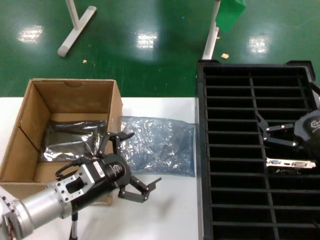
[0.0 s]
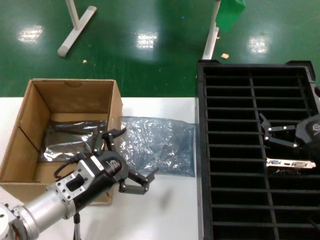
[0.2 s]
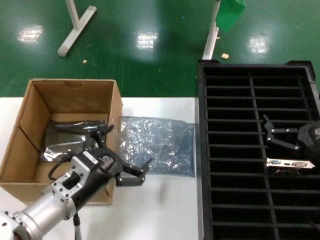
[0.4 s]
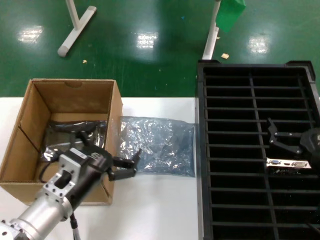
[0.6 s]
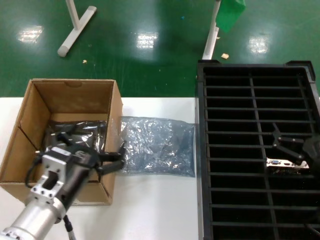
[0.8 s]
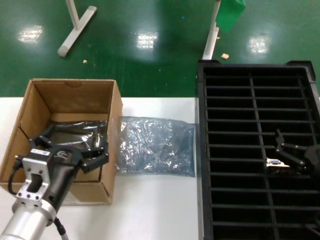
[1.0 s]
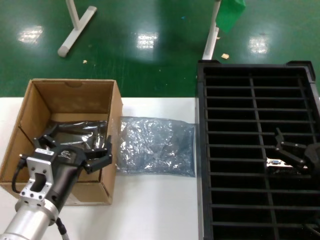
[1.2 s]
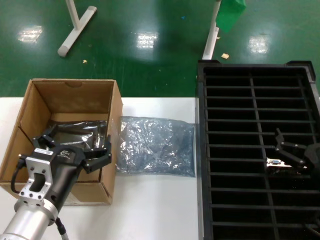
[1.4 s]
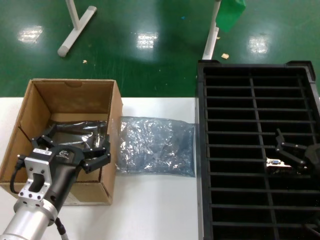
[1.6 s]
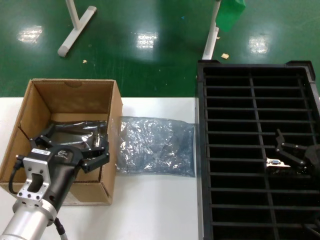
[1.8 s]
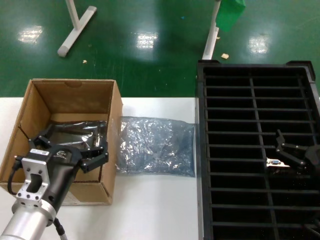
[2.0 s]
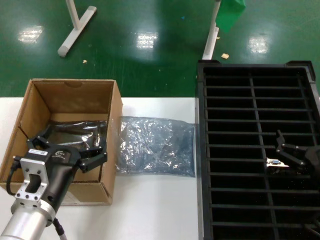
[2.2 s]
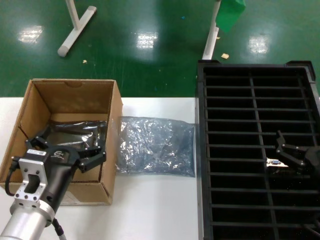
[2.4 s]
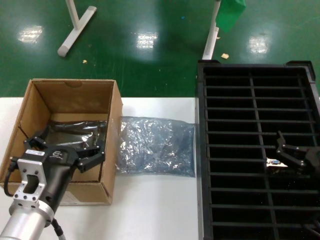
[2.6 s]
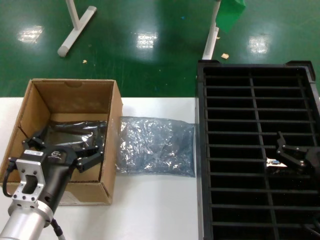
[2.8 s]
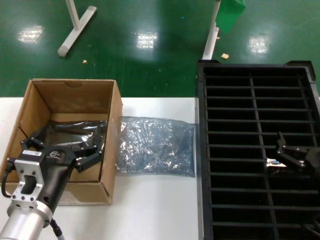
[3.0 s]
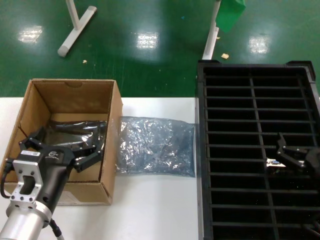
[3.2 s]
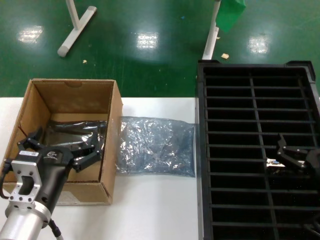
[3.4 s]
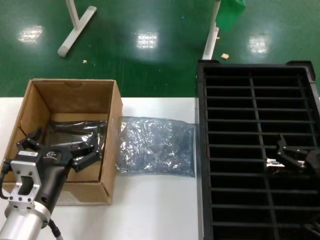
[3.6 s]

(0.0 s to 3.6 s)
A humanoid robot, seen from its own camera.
Task of the whole recording: take out graphics card from box remove packaging put into black container.
0.0 s - 1.8 s: The right hand travels downward by some 10 cm. Meanwhile the left hand goes some 5 cm backward.
1.8 s - 3.6 s: The hands make only small movements.
